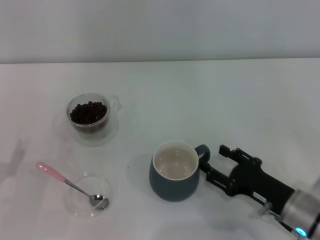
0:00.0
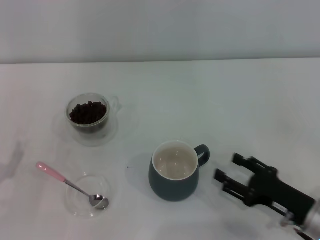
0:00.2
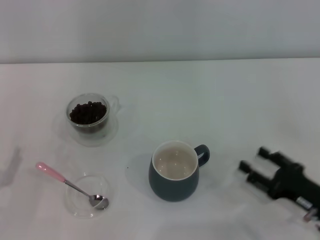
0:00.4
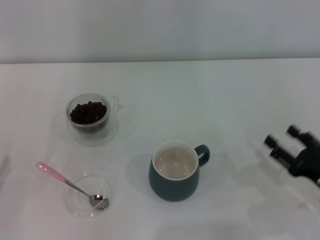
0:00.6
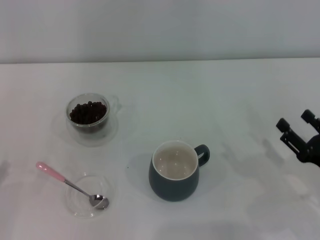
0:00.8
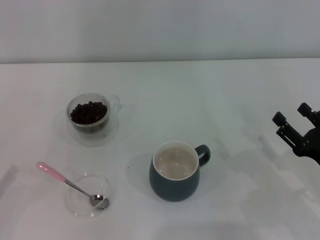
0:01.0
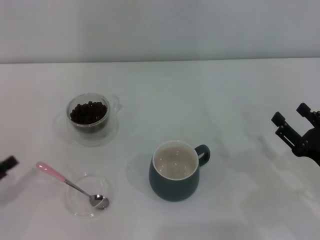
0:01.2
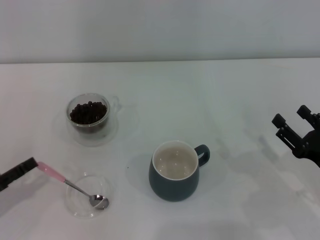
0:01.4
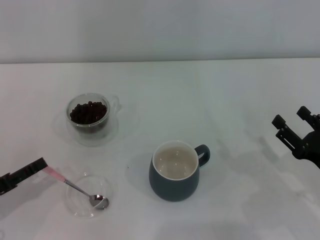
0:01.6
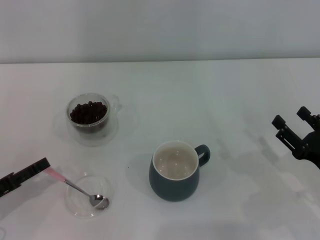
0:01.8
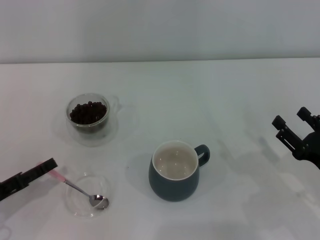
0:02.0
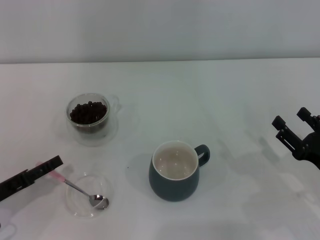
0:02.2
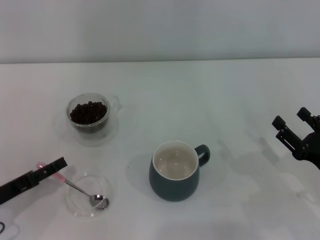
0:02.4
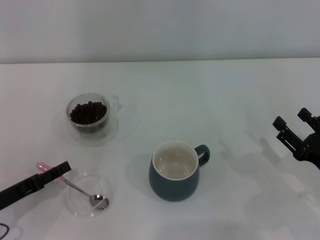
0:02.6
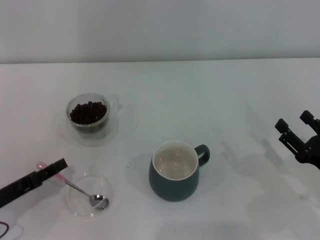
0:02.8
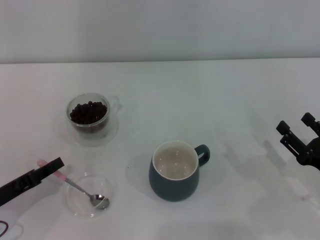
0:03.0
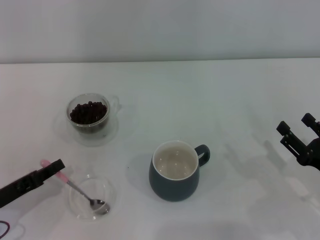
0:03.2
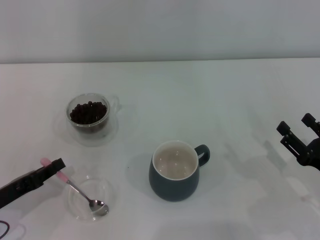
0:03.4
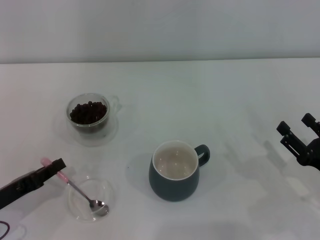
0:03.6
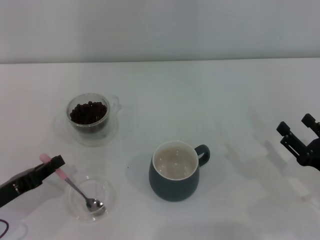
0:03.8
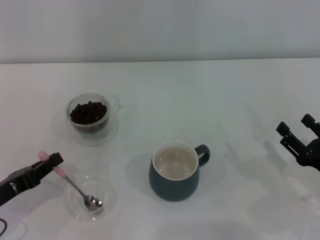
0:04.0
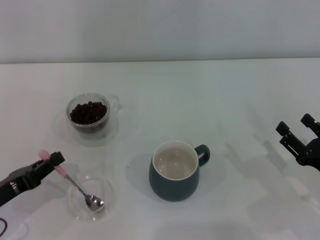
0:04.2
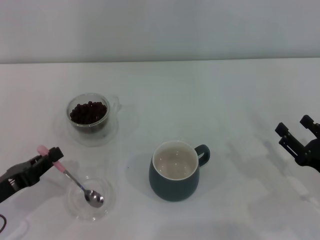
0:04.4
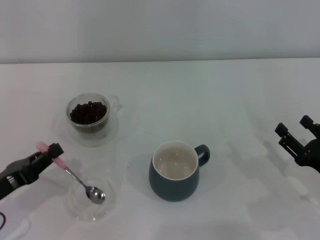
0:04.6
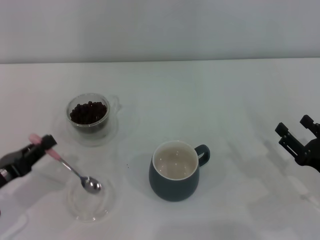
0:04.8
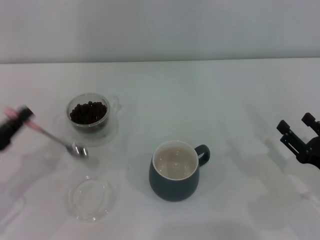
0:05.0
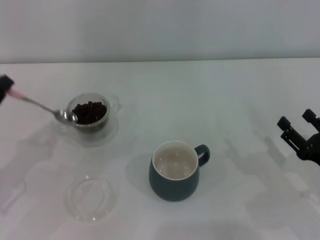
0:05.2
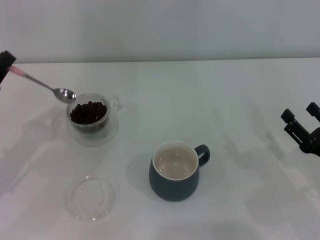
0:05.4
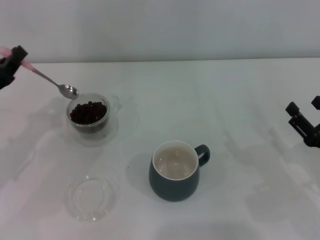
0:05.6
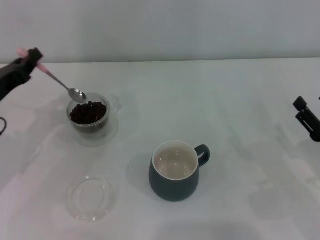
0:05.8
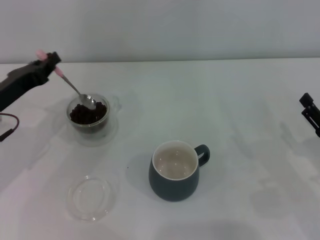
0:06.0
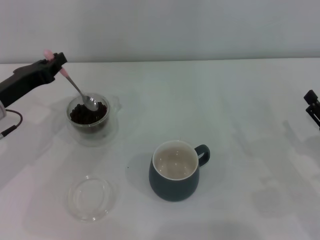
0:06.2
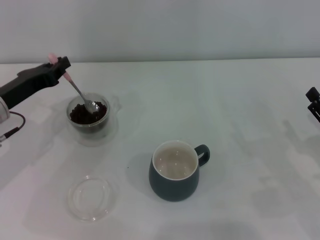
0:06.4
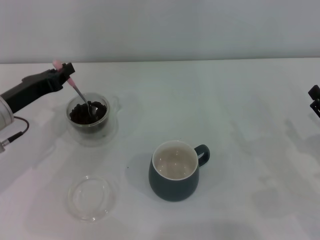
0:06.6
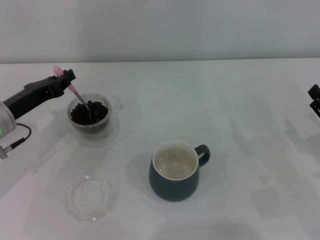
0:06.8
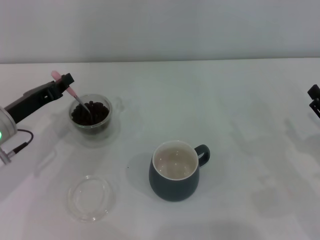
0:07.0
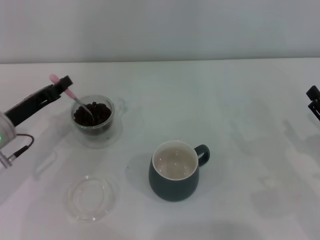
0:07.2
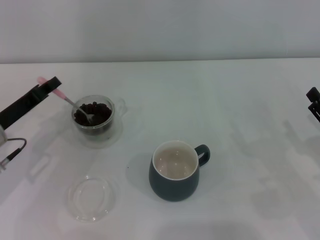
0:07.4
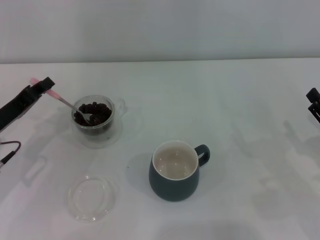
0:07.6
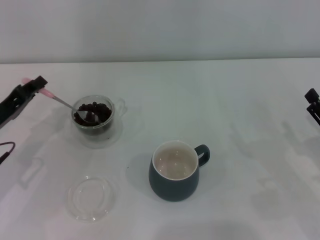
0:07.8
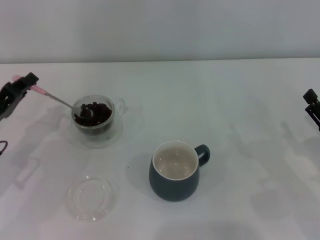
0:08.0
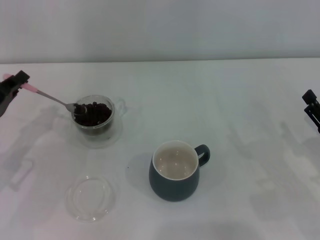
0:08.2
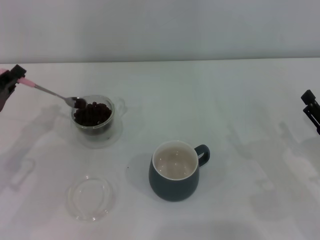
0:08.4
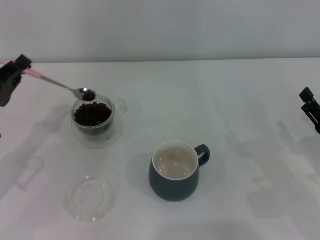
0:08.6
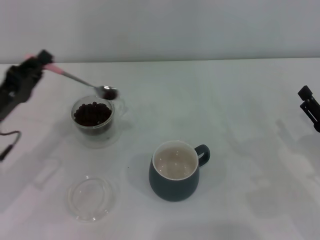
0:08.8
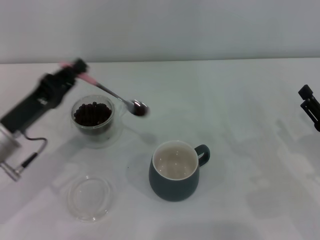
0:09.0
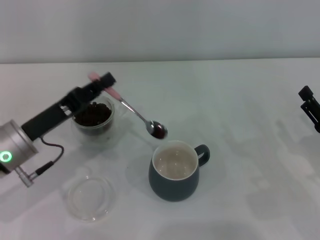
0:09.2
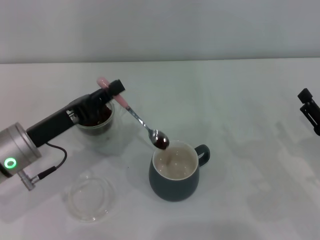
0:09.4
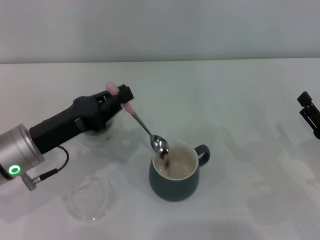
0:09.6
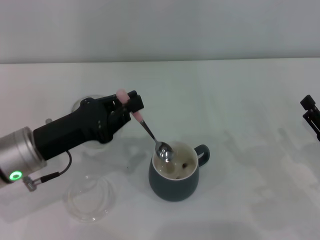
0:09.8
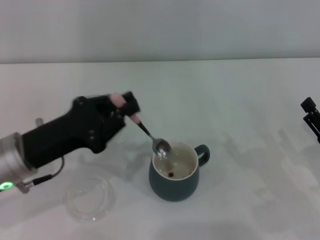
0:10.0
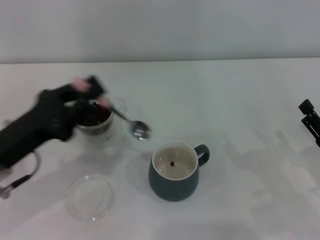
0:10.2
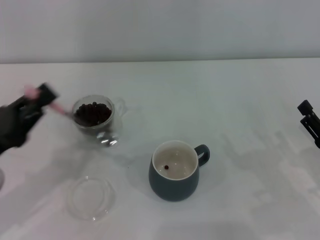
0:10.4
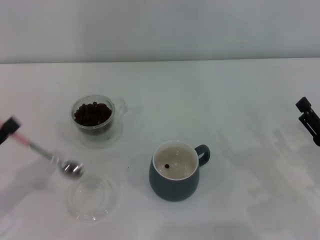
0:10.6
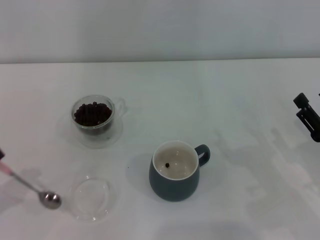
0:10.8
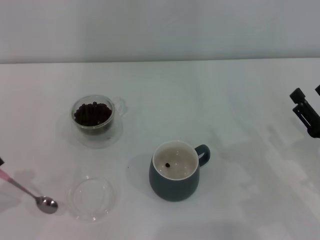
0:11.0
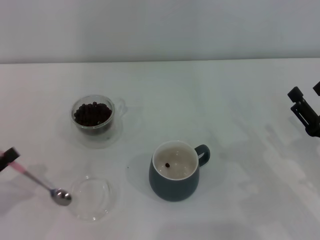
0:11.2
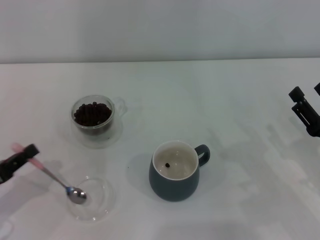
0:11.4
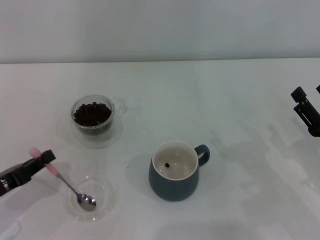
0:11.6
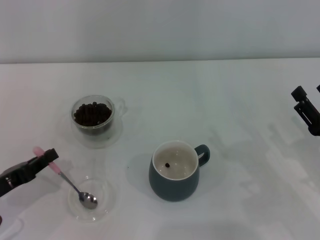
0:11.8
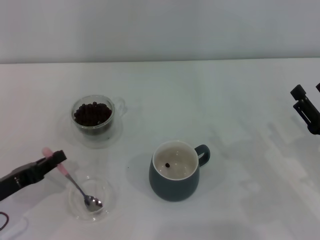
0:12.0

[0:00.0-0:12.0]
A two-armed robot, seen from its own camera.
Task of the whole recording: Use a pink spoon to take out the coffee beans from the glass and pour them into the gray cup.
Step, 0:00.2 to 0:04.6: Pick up the spoon with the right gripper.
Step, 0:04.8 to 0:10.0: Scoop a spoonful of beans into the cup with the right gripper.
0:00.0 to 0:01.6: The right gripper shifts roughly 5 cm to the right, and opens.
0:01.6 to 0:03.0: The left gripper closes.
0:03.0 to 0:04.4: The left gripper closes.
0:04.4 to 0:06.0: The left gripper moves forward and upward, approximately 15 cm.
0:07.6 to 0:09.0: The left gripper moves some 5 cm.
0:09.0 to 0:10.4: The left gripper is displaced backward by some 5 cm.
0:10.4 to 0:12.0: The left gripper travels downward by approximately 5 cm, and reaches about 10 cm to the left, then returns.

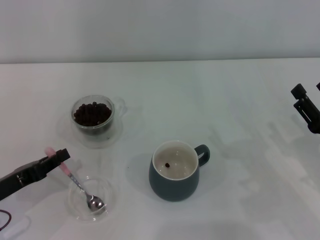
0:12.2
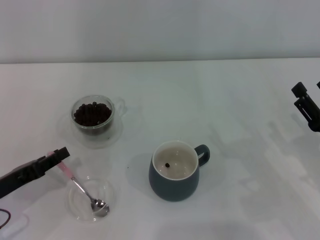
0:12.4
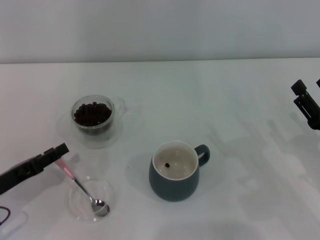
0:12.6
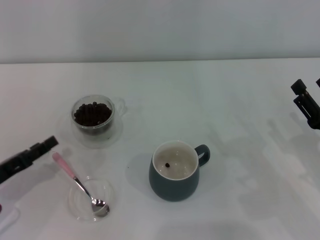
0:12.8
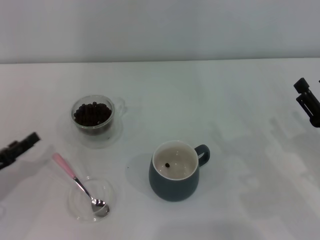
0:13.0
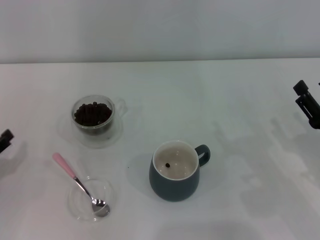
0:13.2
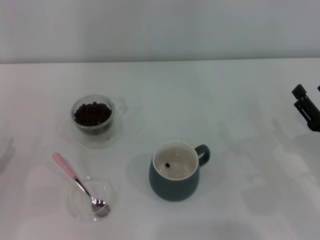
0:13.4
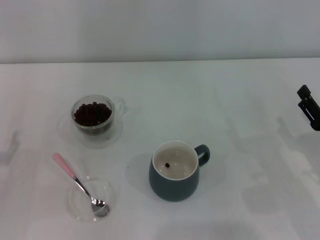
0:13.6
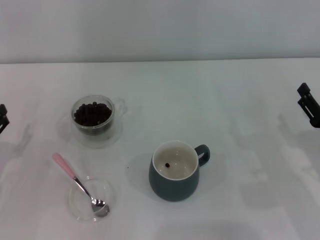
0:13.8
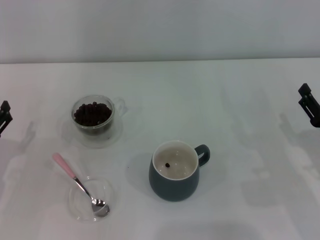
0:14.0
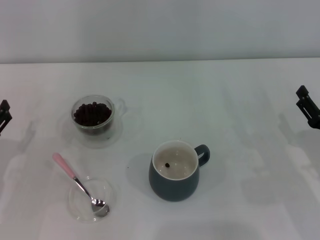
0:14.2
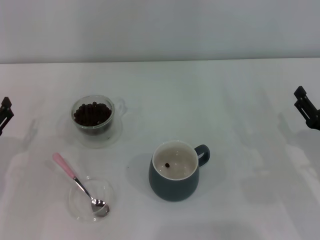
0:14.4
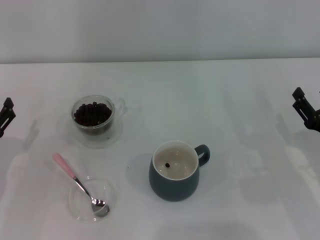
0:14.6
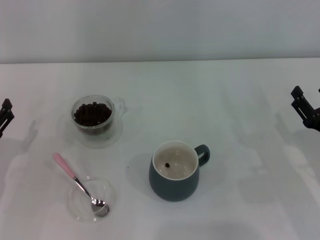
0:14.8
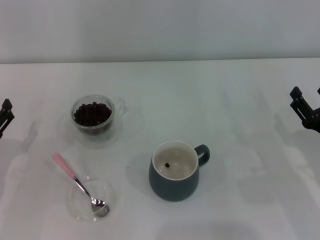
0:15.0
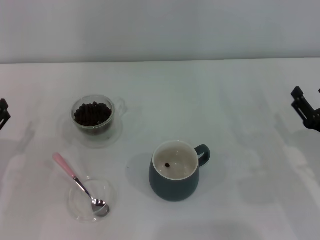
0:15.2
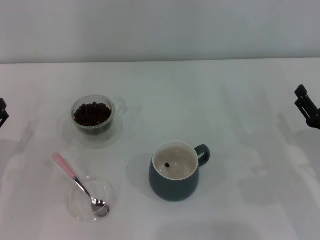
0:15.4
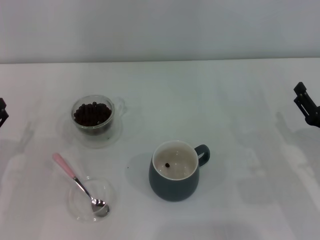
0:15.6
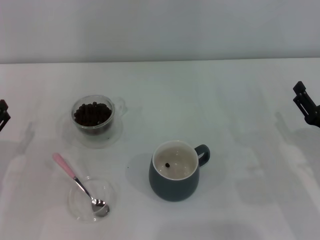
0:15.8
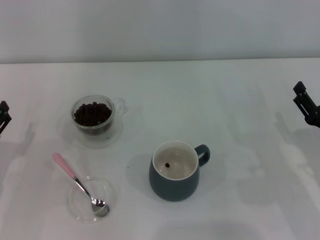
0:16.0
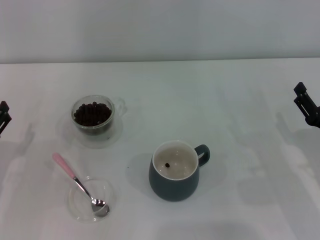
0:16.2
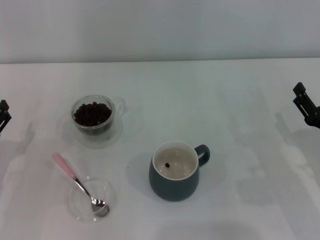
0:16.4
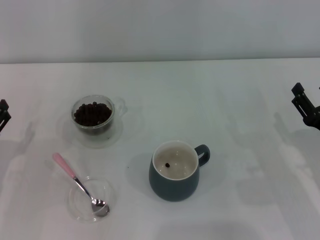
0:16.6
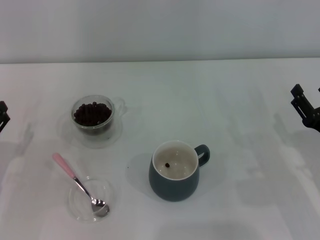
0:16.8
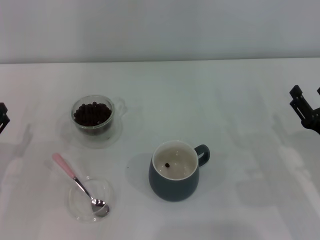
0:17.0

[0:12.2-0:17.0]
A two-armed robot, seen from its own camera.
Task of the whole recording: Use a pink spoon to take out the coffee beans from the glass and pour them into the gray cup.
0:12.2 to 0:13.8: The left gripper opens up.
0:13.8 to 0:15.4: Neither gripper changes place.
0:15.4 to 0:17.0: Neither gripper changes place.

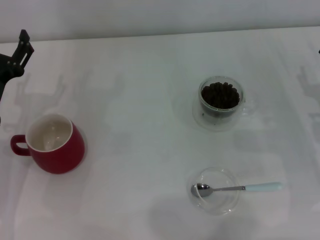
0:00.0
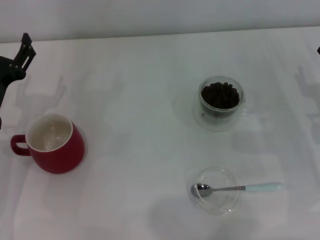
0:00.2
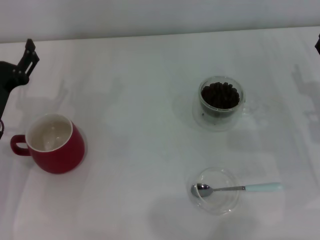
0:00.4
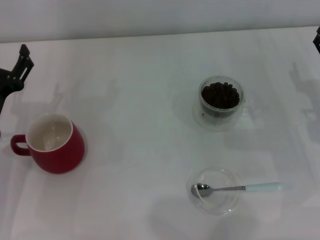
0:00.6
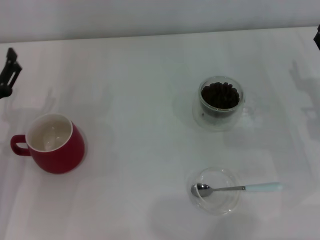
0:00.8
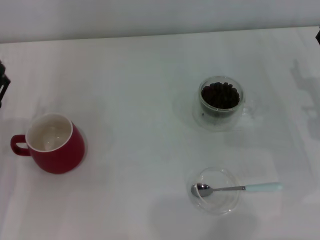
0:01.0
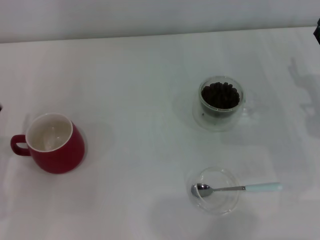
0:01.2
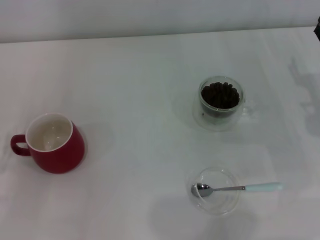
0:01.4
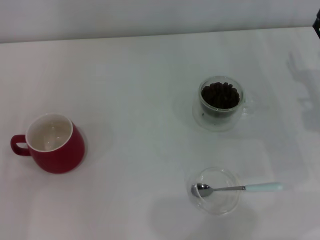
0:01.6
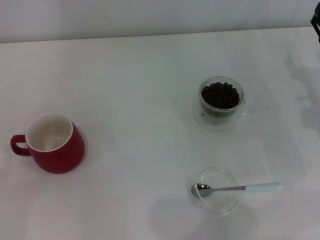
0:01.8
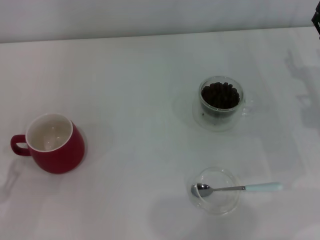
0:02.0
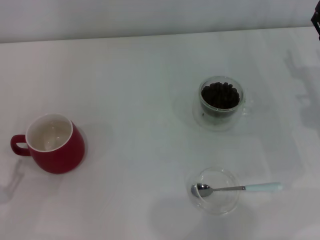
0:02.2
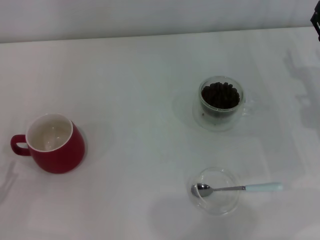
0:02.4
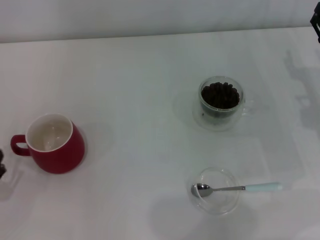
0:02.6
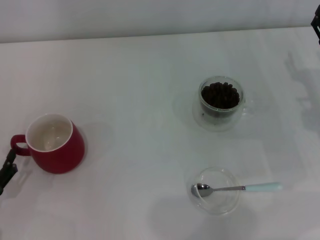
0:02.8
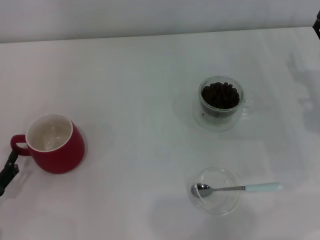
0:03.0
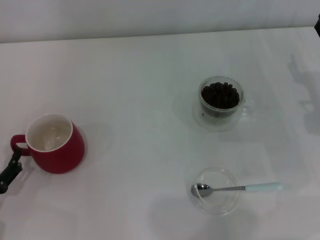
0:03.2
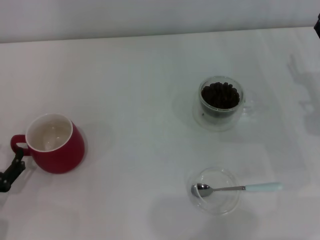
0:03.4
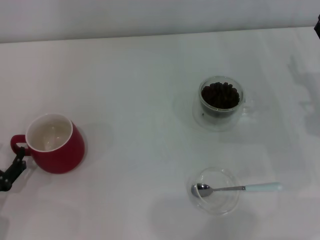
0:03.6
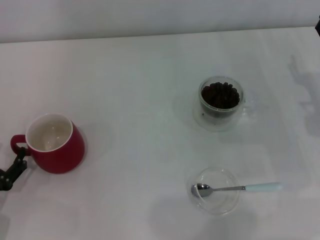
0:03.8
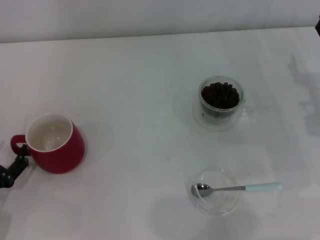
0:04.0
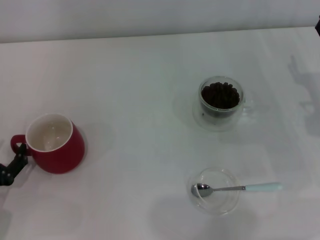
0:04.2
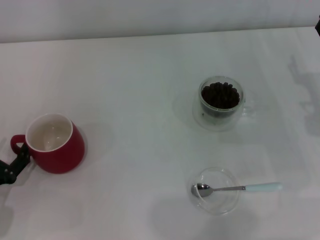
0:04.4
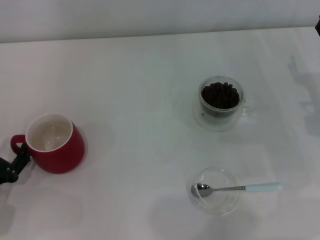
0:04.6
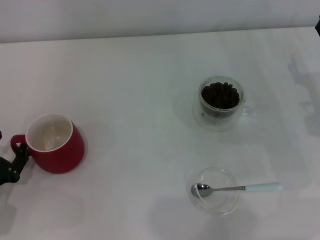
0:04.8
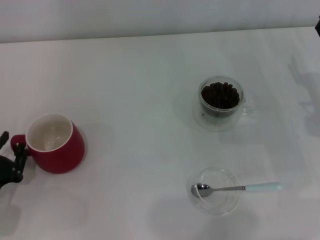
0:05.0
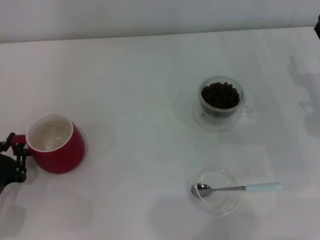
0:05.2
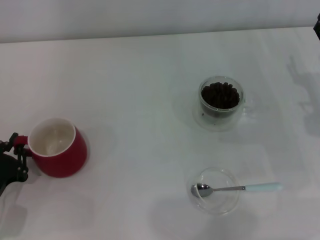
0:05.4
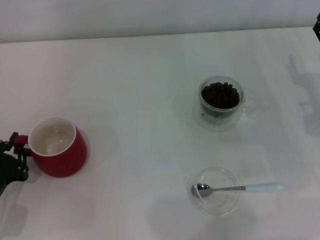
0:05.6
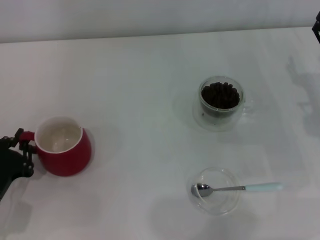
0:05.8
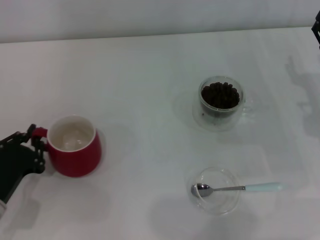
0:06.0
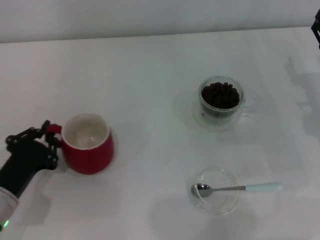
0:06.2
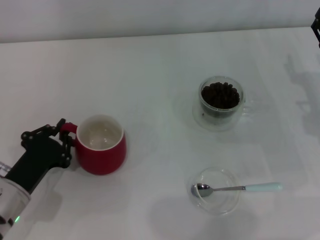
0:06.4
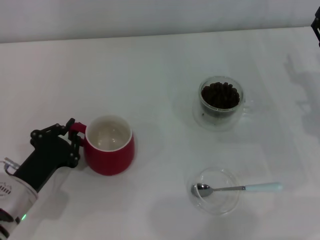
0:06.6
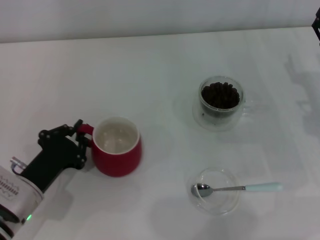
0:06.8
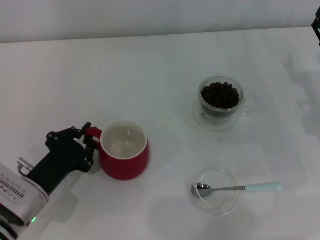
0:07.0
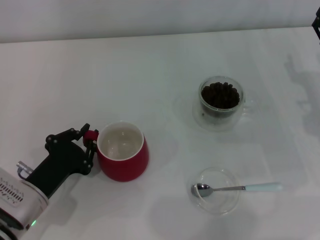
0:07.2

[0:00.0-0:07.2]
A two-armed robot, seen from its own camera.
Task of the whole recording: Use a blue spoon to take out the coffee beans from the glass and pour them into the red cup.
0:00.0 to 0:01.4: The left gripper moves backward and to the left, roughly 15 cm.
0:02.8 to 0:04.4: The grippers move only a little.
0:04.4 to 0:05.8: The left gripper closes.
0:05.8 to 0:07.2: The left gripper is displaced to the right by about 5 cm.
